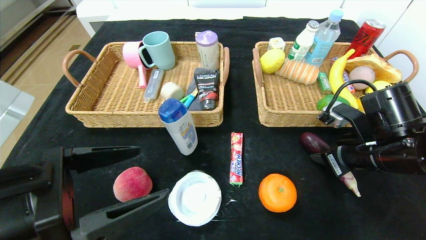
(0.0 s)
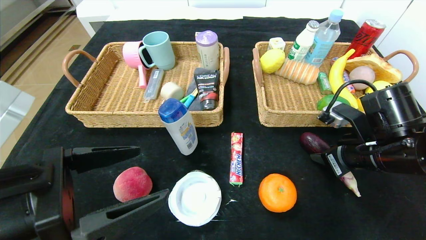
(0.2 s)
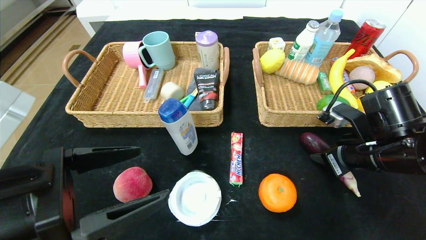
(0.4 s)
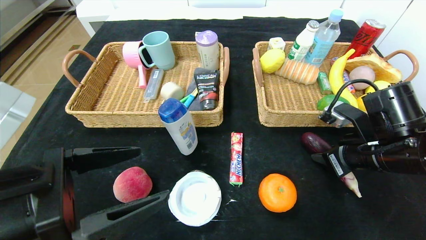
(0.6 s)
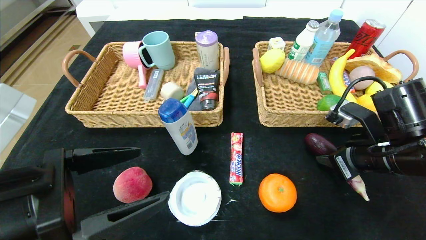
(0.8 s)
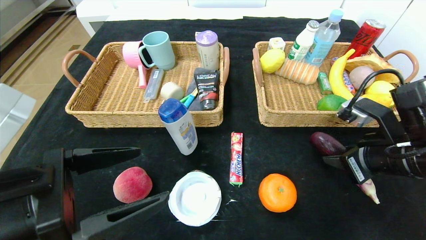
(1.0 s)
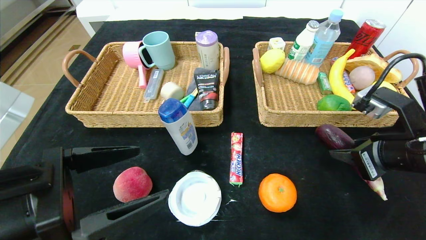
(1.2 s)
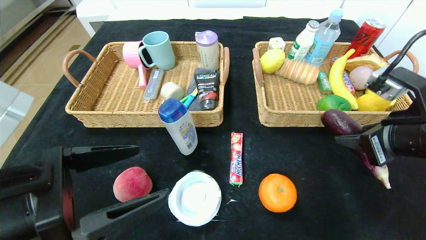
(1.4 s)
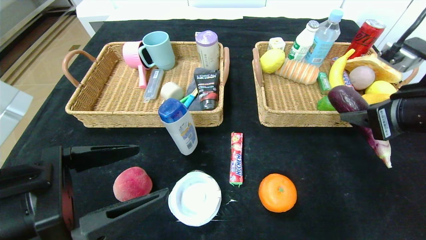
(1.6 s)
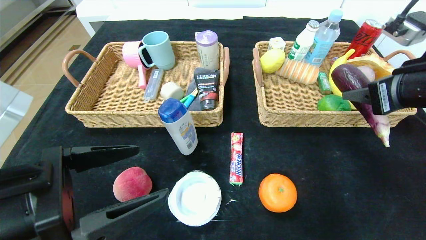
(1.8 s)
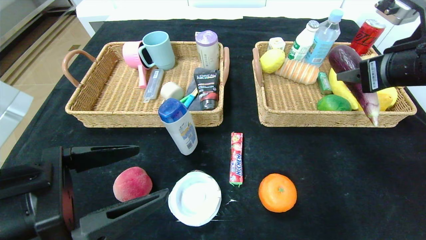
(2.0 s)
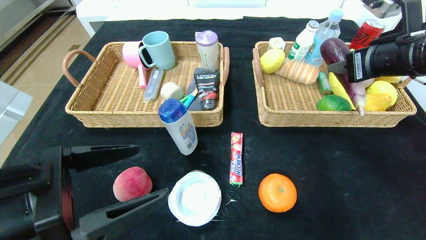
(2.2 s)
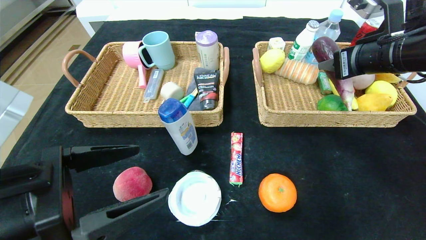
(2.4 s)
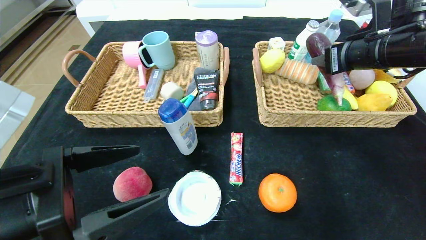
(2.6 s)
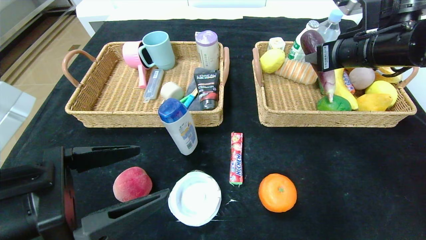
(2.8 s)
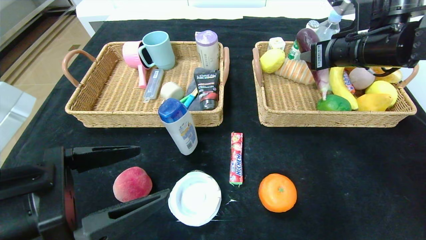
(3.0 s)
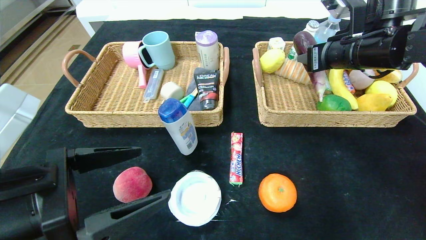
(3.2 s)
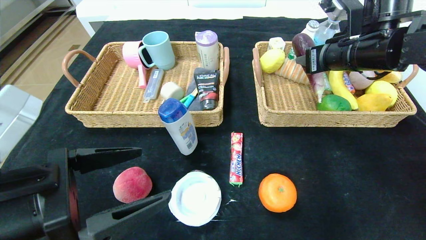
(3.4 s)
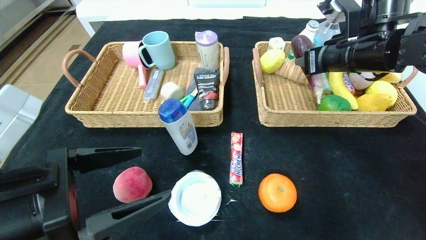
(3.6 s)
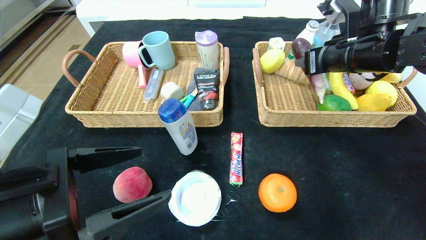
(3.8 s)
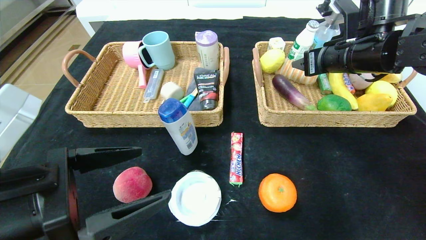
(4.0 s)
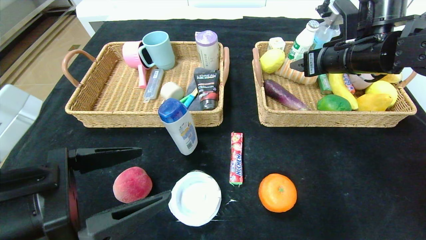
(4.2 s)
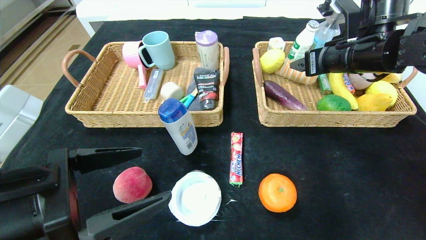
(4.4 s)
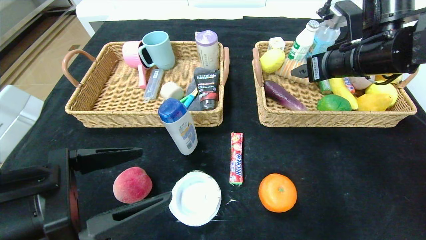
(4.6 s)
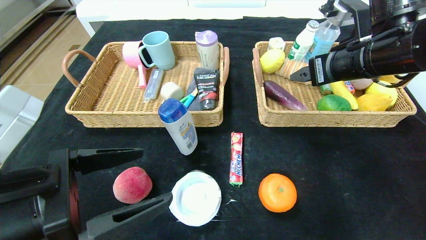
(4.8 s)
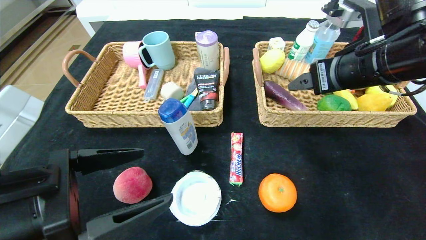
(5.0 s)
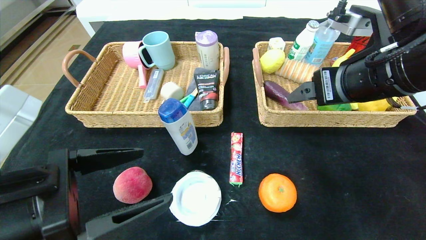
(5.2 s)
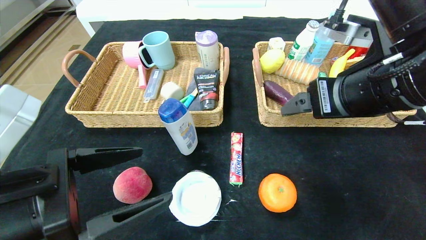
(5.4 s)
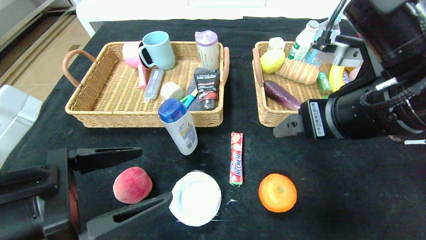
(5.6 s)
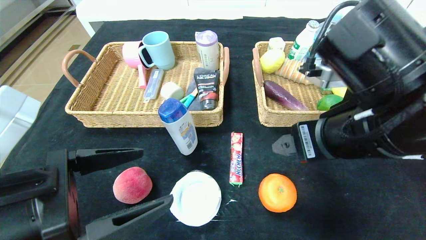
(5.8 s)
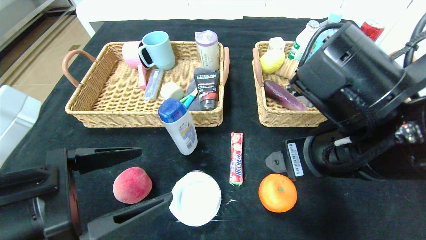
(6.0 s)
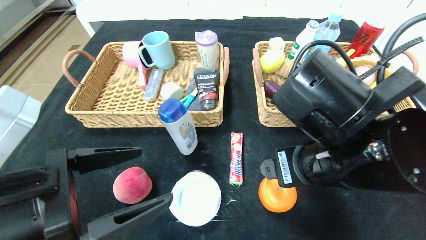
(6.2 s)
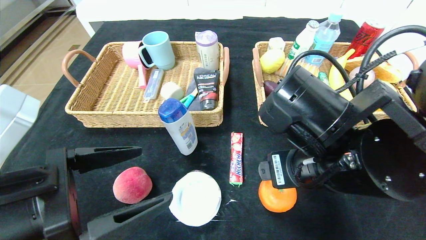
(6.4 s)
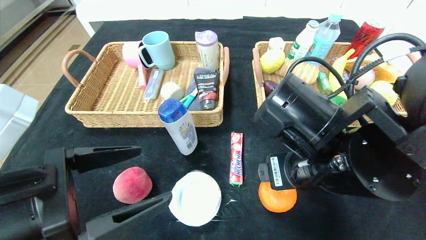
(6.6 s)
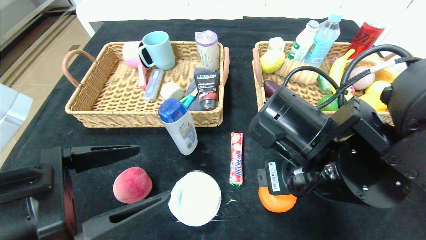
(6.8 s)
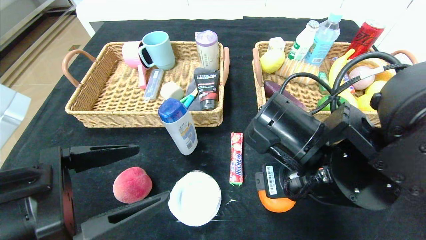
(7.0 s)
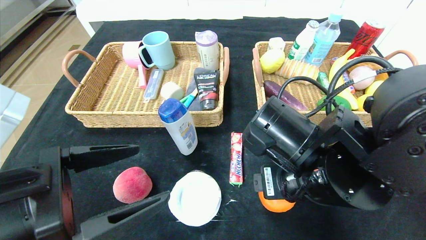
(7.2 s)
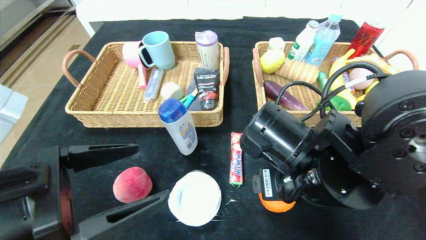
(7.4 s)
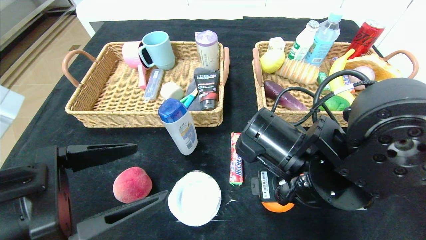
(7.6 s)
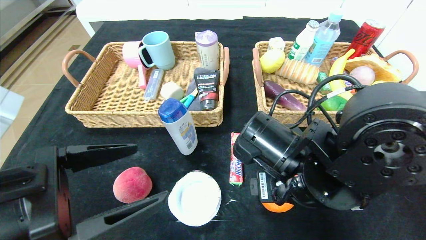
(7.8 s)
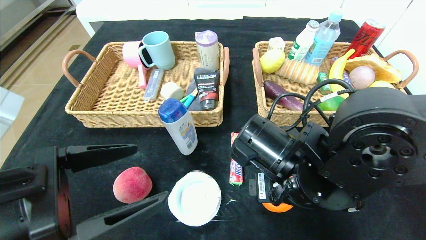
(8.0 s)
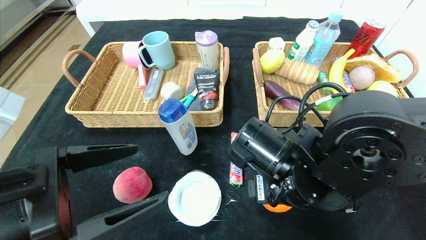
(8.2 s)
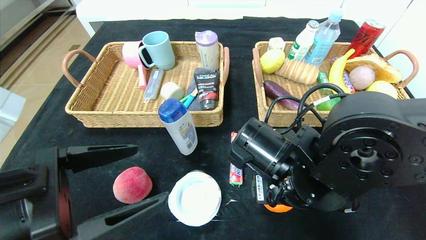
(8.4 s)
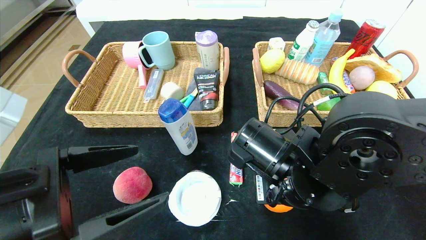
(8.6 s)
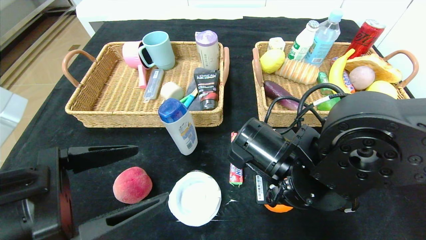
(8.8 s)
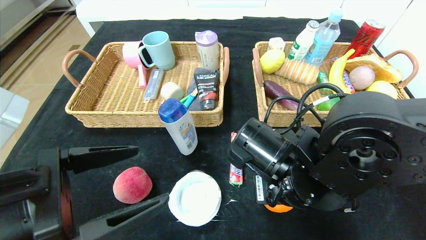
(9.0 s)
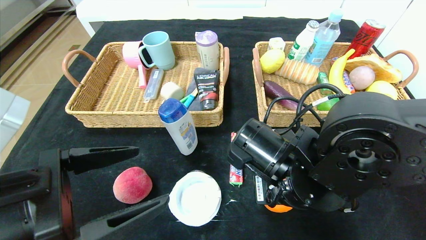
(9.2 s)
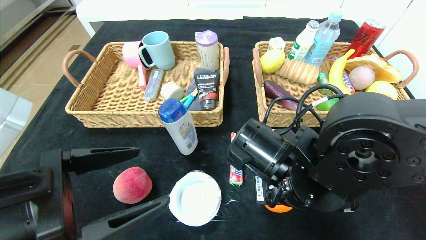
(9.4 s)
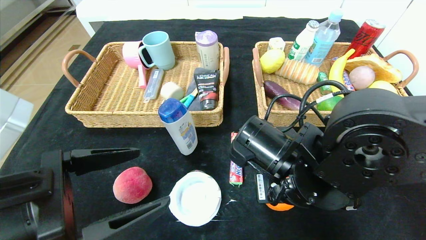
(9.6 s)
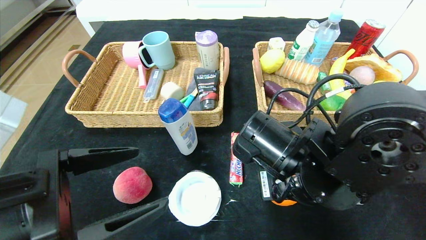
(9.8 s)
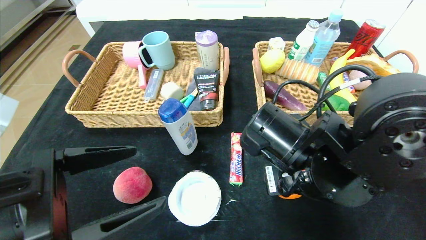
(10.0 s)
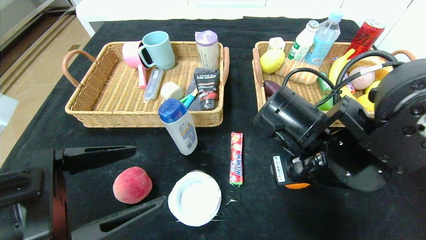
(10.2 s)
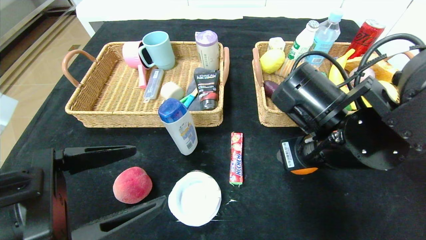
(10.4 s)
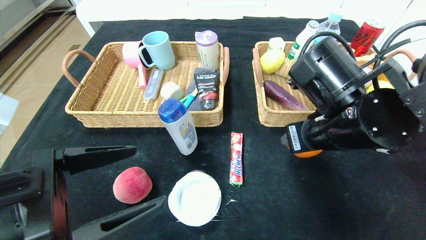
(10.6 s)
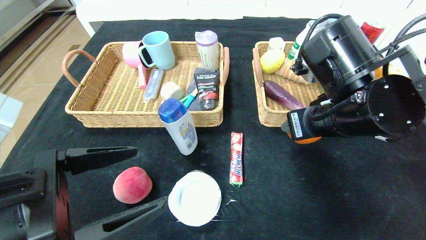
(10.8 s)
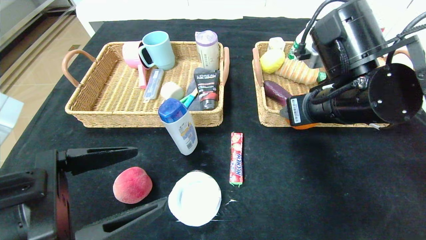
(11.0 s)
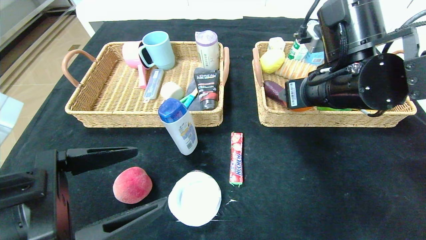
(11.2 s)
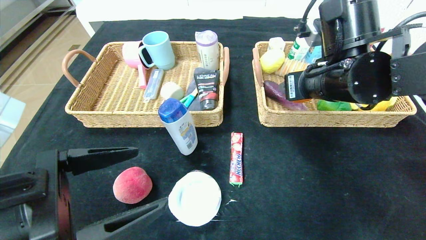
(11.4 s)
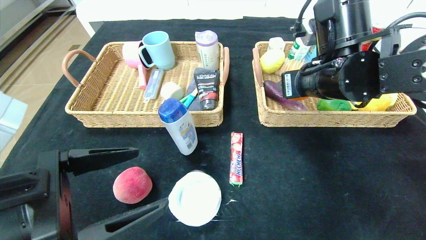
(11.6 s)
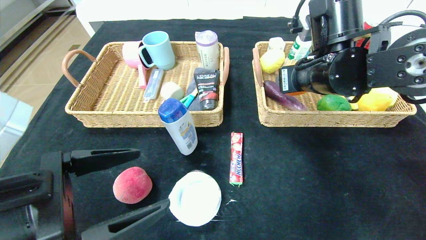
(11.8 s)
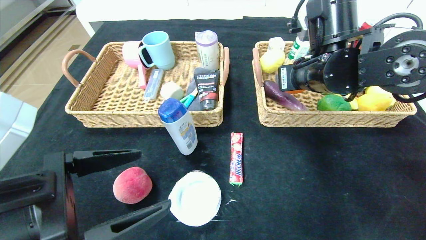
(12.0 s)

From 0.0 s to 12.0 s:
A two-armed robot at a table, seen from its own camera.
Step, from 0.0 s to 5.8 s: Pick up the eggplant and put it in the right basket.
From 0.0 s to 1.6 s: The right gripper travels upward by some 10 cm.
From 1.6 s to 3.0 s: The right gripper heads forward, covering approximately 10 cm.
From 3.0 s to 4.4 s: The right gripper opens up.
From 4.4 s to 6.0 s: The right gripper goes some 20 cm backward and to the left.
From 6.0 s to 7.6 s: The right gripper moves downward, approximately 5 cm.
From 7.6 s to 9.0 s: There are only small adjustments of the grippers.
From 9.0 s to 10.4 s: The right gripper heads upward, covering about 5 cm.
From 10.4 s to 12.0 s: The right gripper shifts approximately 10 cm forward and upward.

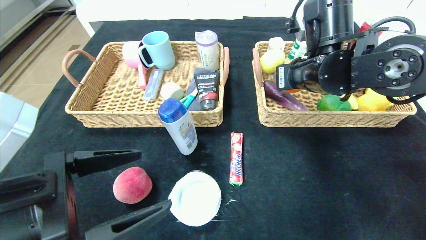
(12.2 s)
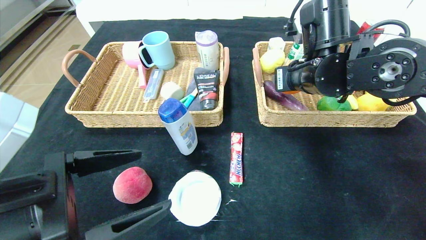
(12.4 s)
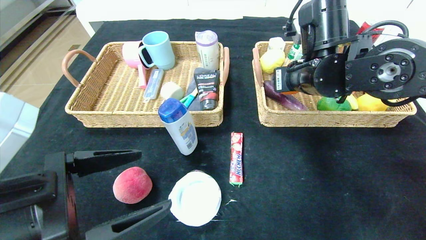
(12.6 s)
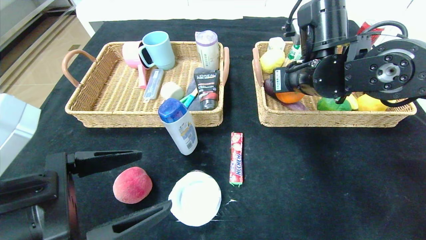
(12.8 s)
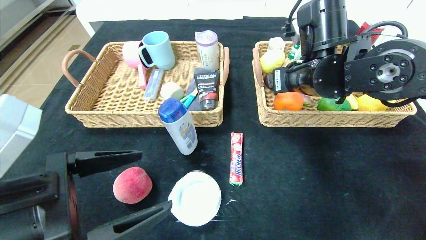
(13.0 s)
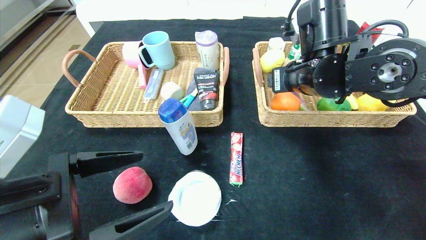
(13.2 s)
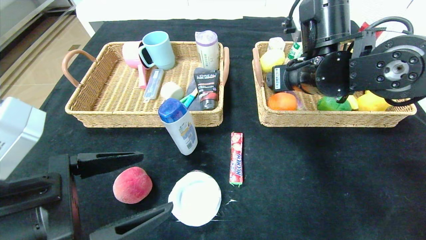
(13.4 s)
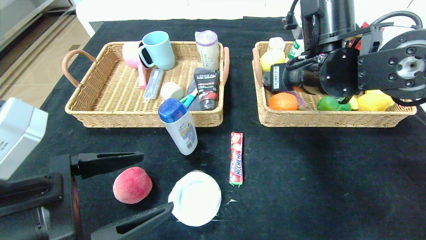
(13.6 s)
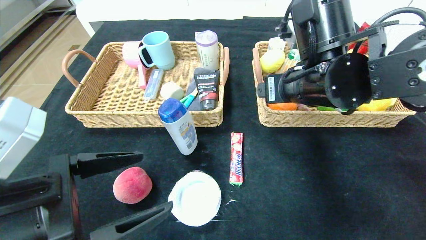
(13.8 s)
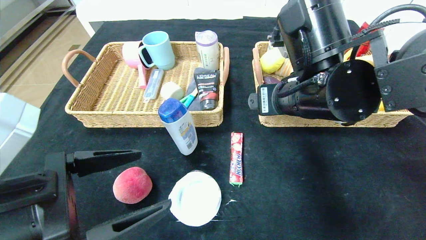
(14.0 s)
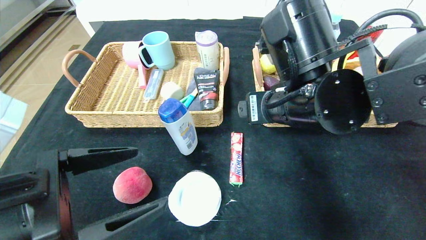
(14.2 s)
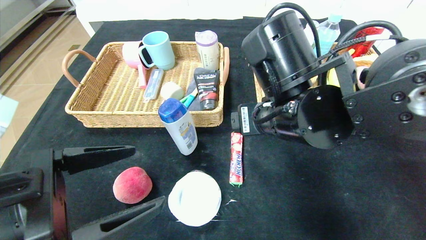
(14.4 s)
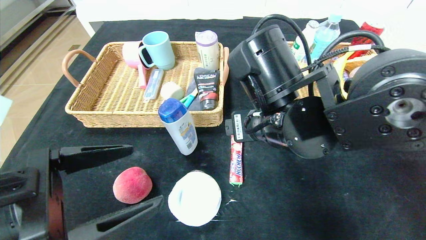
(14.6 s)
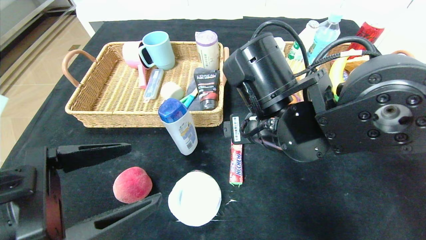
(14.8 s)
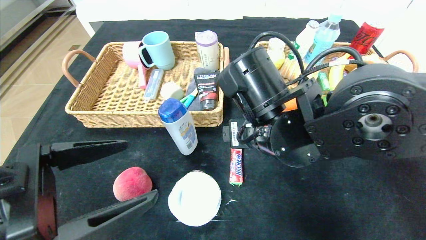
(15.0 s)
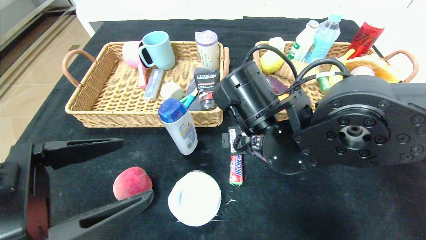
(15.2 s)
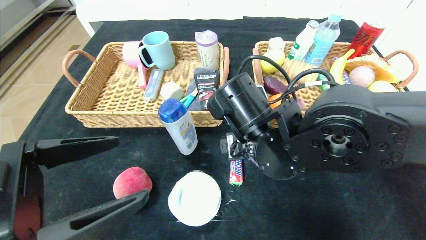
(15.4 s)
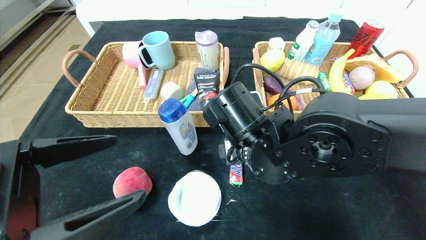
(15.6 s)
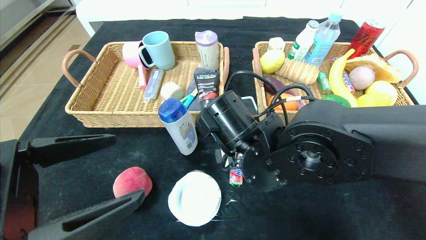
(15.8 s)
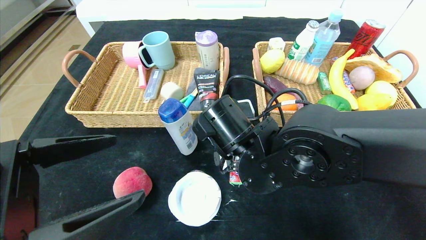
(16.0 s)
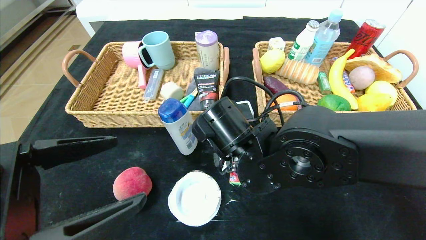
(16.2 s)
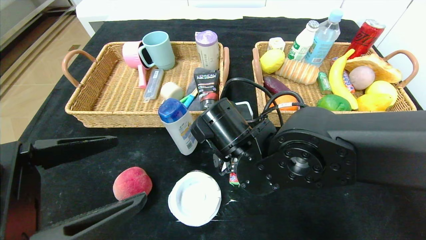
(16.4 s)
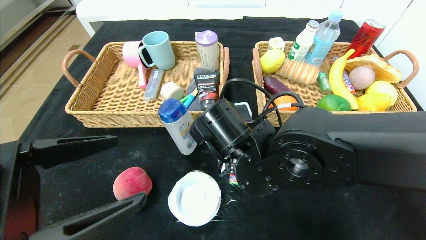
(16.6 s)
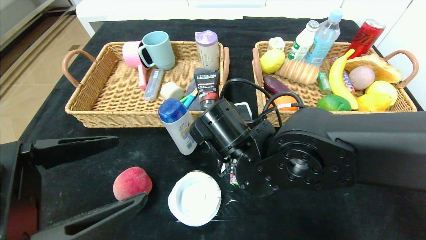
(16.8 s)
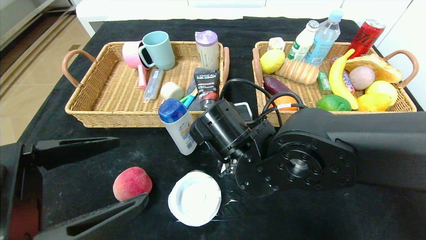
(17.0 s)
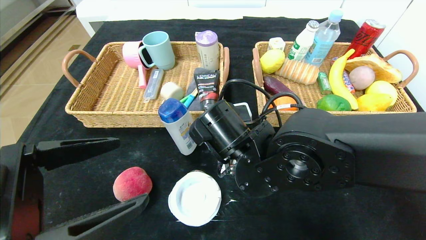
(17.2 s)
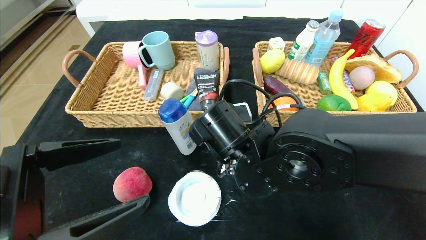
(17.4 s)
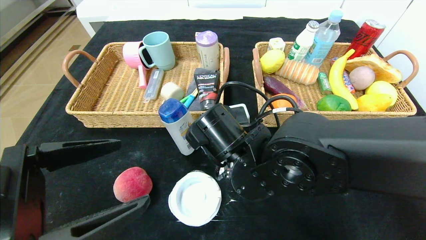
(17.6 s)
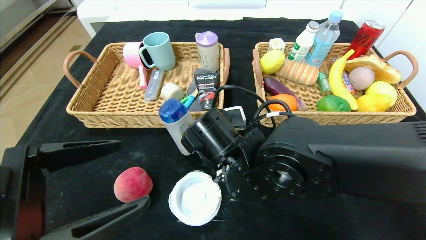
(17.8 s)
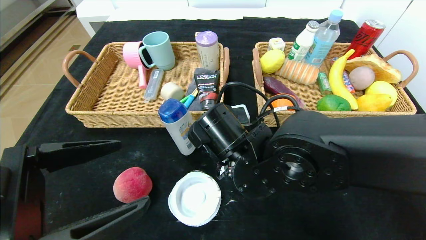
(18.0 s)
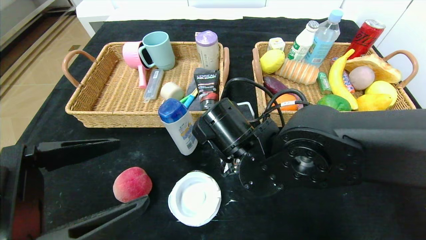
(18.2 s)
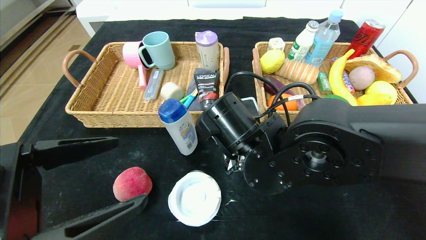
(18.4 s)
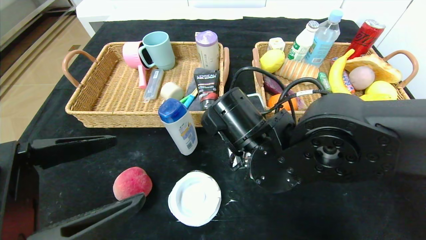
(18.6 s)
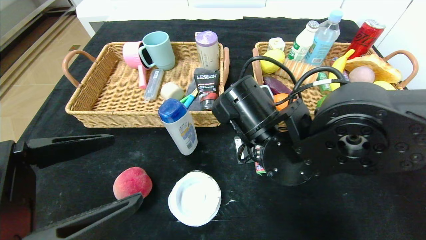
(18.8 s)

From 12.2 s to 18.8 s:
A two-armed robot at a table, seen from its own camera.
Step, from 12.2 s to 14.6 s: Pick up the orange and put it in the right basket.
From 12.2 s to 13.8 s: The right gripper is displaced backward by about 5 cm.
From 13.8 s to 15.4 s: The right gripper goes some 10 cm downward and to the left.
From 15.4 s to 17.2 s: The right gripper closes.
From 17.2 s to 18.8 s: The grippers move only a little.
